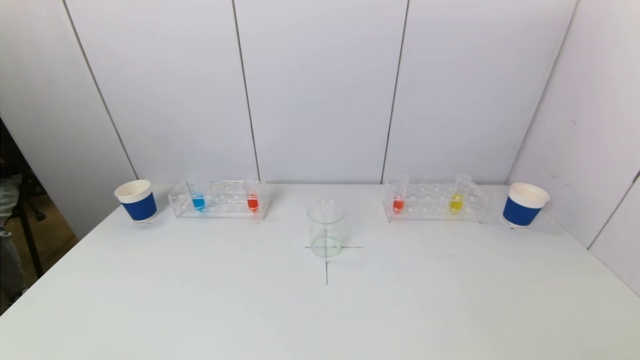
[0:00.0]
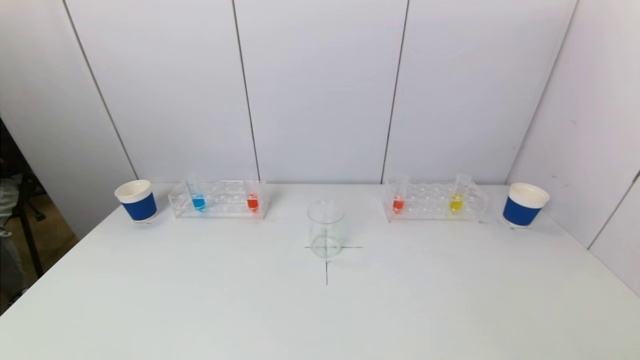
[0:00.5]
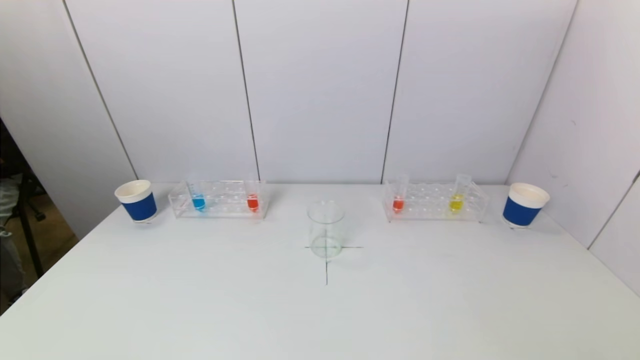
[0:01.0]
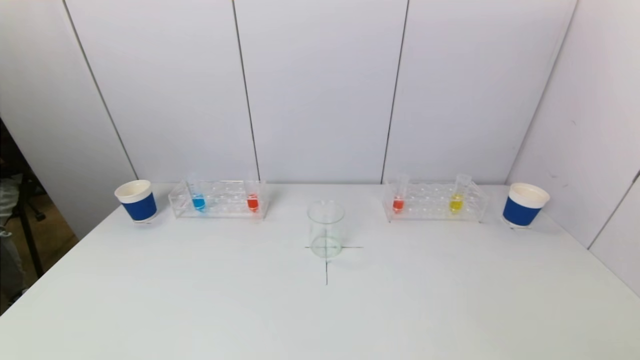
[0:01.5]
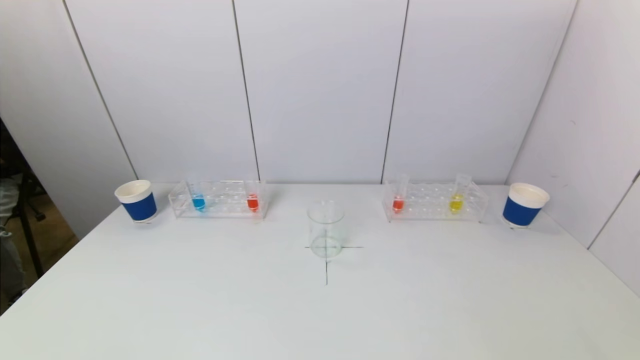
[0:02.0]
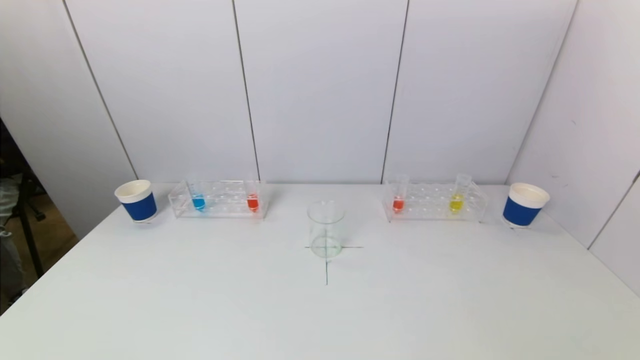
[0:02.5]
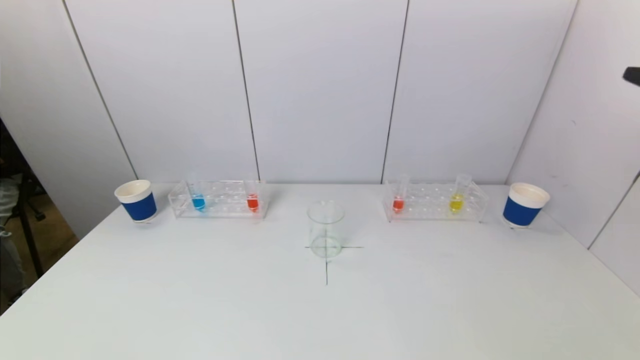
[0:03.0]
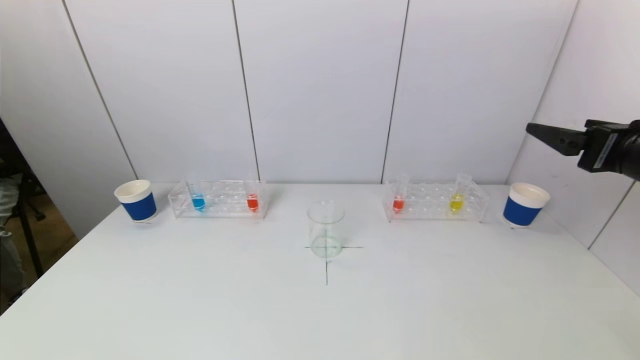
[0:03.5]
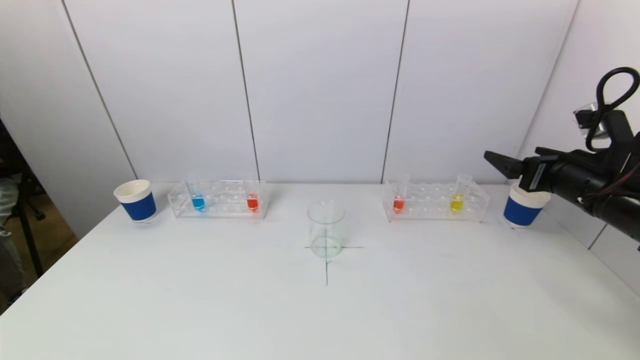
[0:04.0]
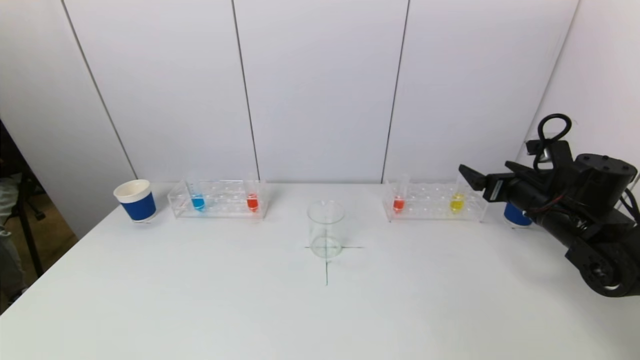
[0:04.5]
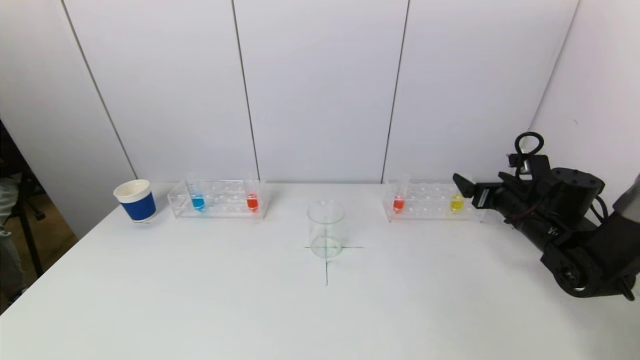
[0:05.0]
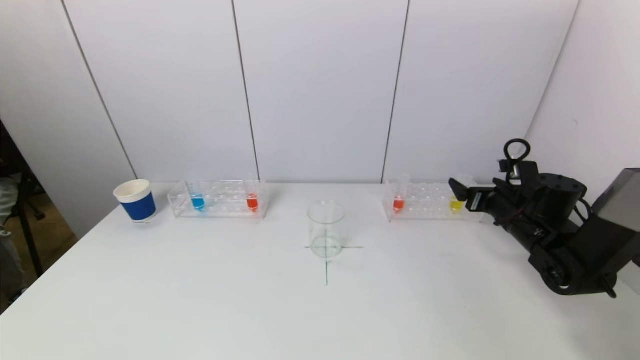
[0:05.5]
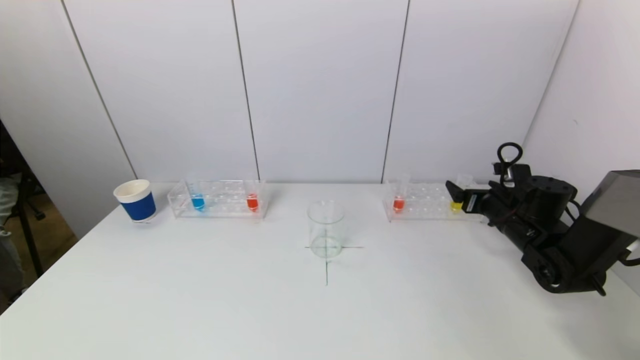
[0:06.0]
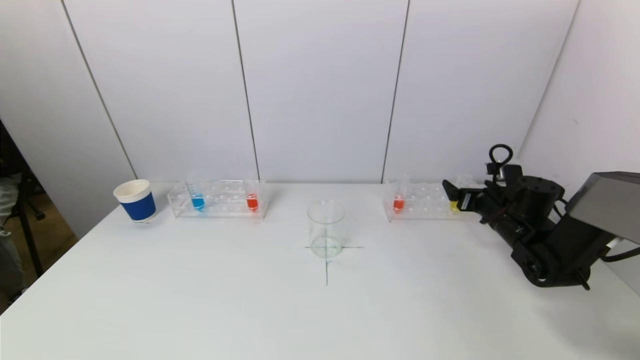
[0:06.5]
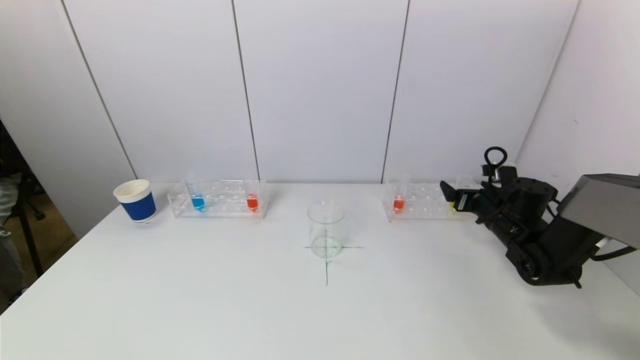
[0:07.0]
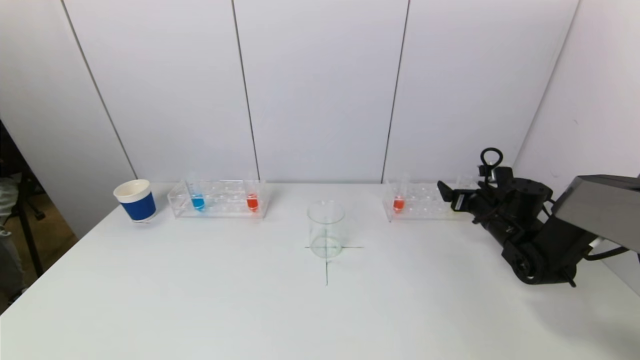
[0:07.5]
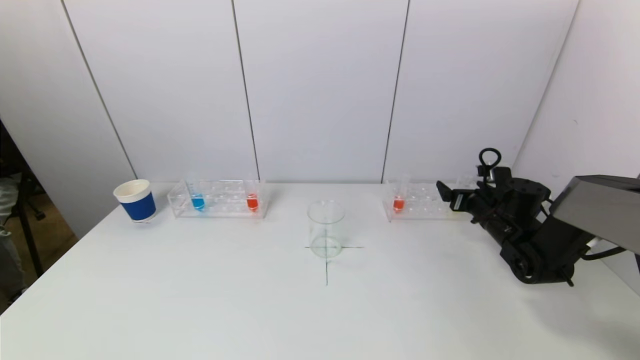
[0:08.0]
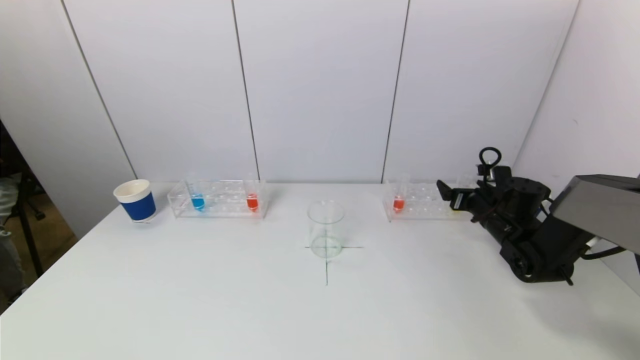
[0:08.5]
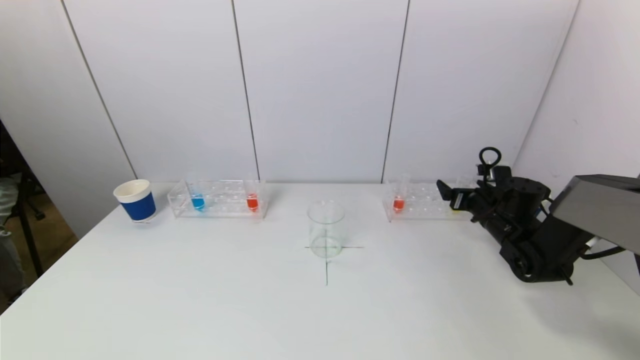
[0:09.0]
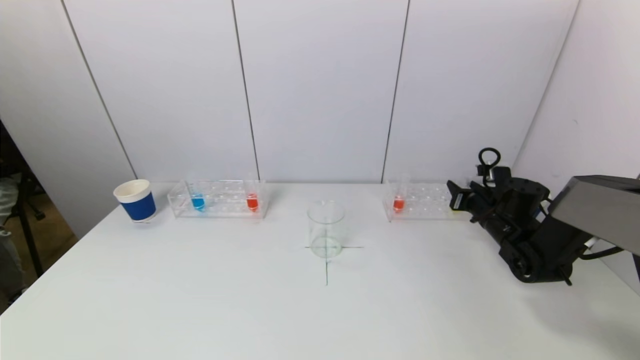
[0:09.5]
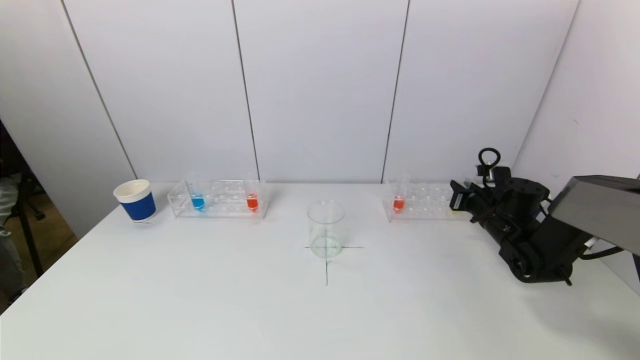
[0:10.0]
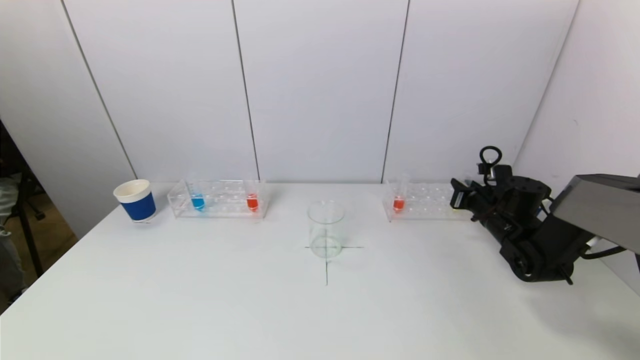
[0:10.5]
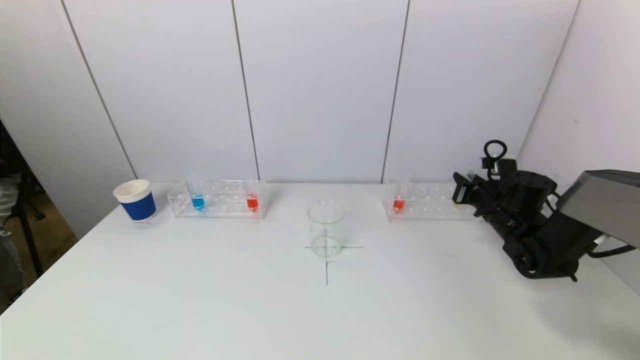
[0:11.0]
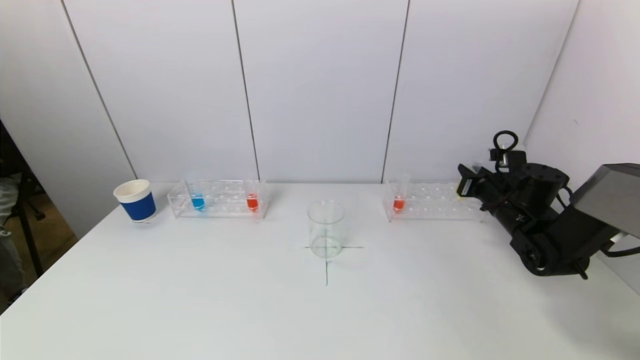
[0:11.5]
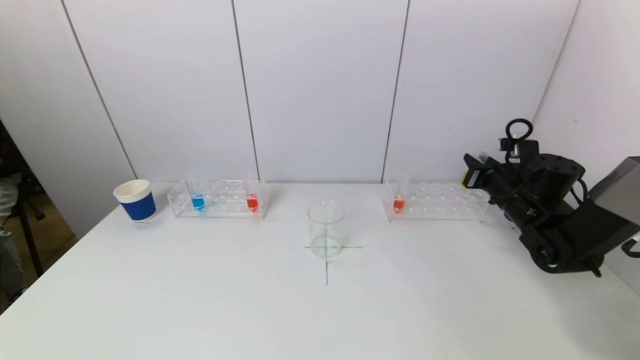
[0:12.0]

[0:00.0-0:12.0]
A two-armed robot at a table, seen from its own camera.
Task of the whole recording: pick up a test tube with pigment on left test tube rack and a test tube with pigment on right test tube rack by grippers and pour them into the beaker.
Step, 0:00.0 to 0:10.0: Grasp the yellow reagent with the right gripper.
0:02.0 to 0:04.0: The right gripper shifts approximately 35 cm forward.
0:04.0 to 0:06.0: The right gripper is displaced downward and forward by roughly 15 cm.
0:06.0 to 0:08.0: The grippers move only a little.
0:08.0 to 0:10.0: The right gripper closes.
0:10.0 to 0:12.0: The right gripper travels upward by some 5 cm.

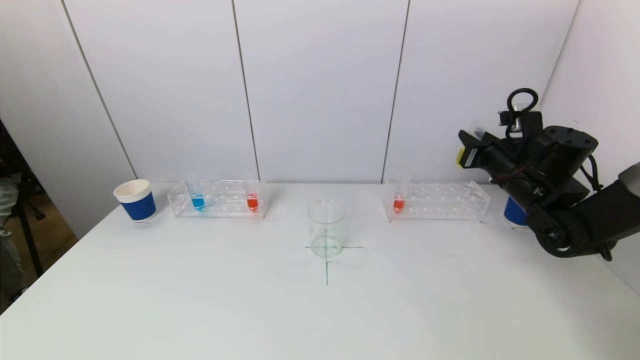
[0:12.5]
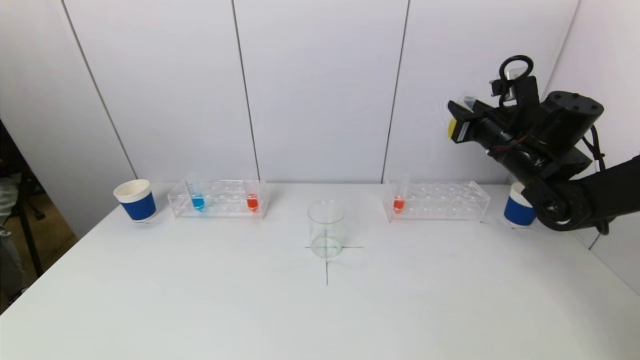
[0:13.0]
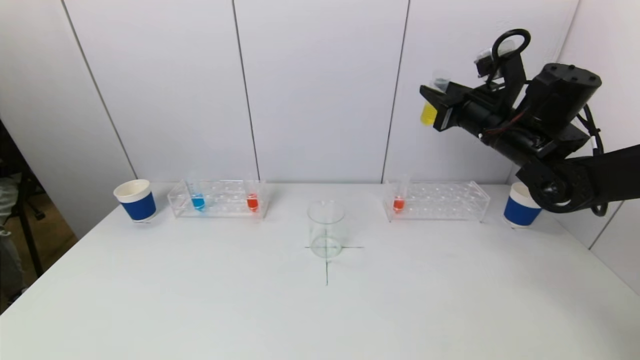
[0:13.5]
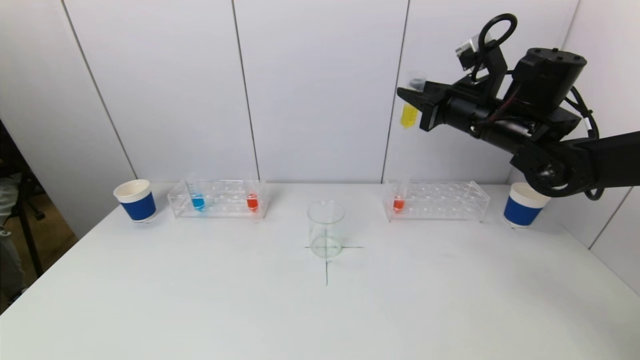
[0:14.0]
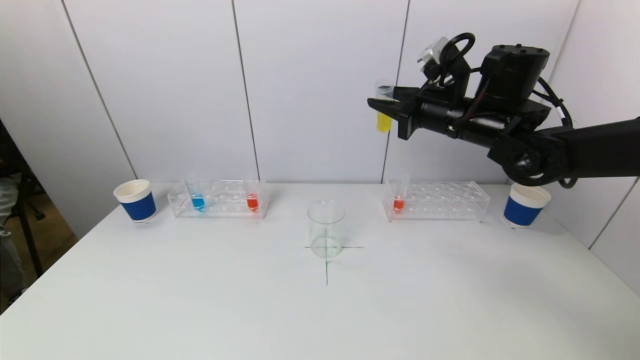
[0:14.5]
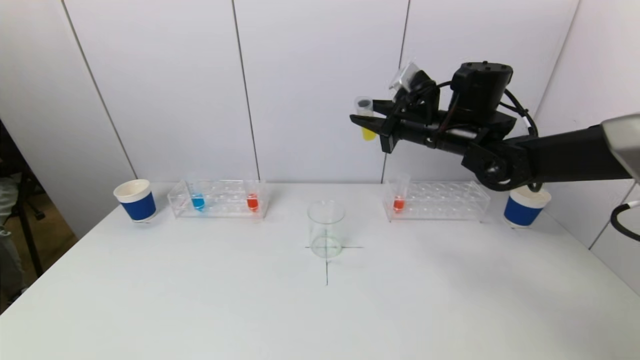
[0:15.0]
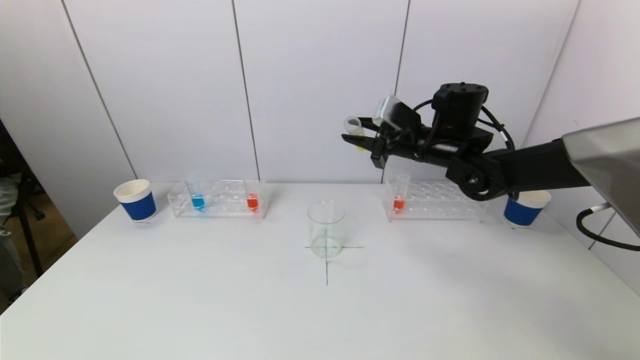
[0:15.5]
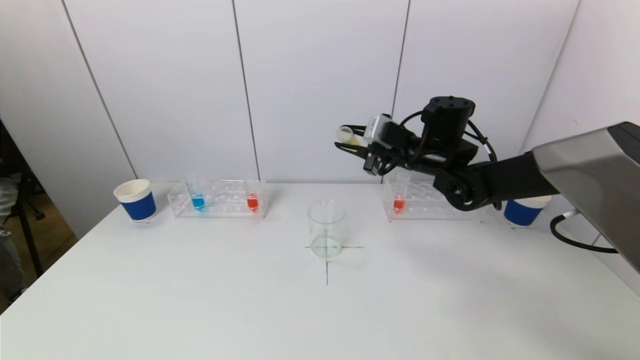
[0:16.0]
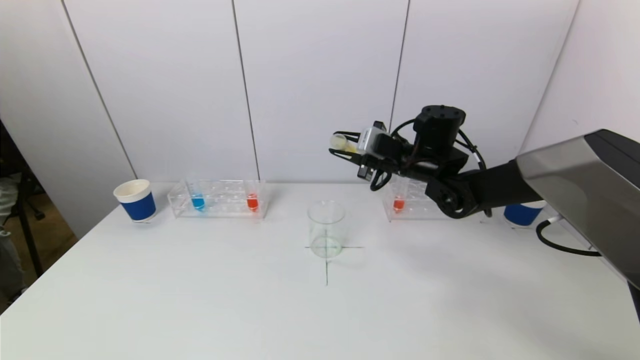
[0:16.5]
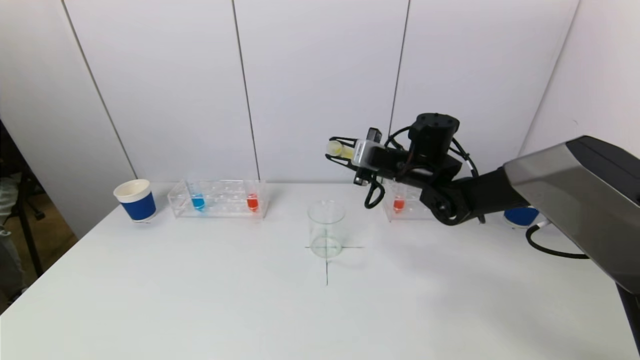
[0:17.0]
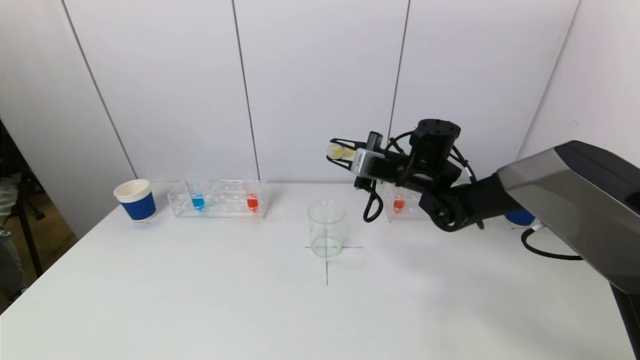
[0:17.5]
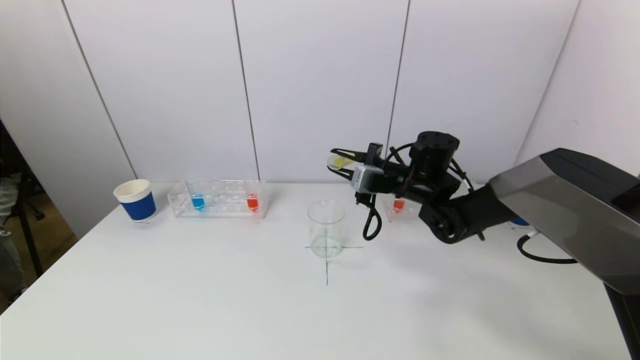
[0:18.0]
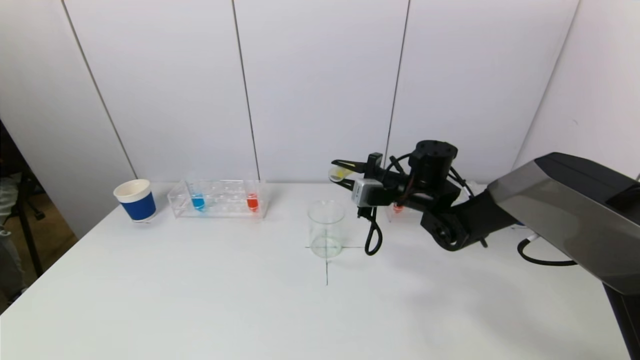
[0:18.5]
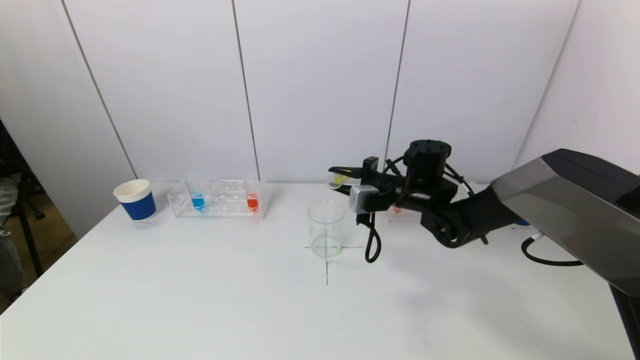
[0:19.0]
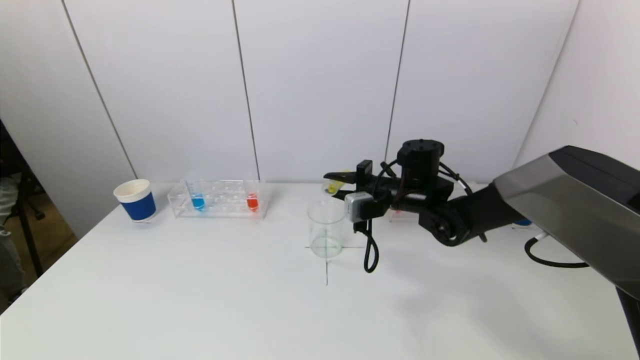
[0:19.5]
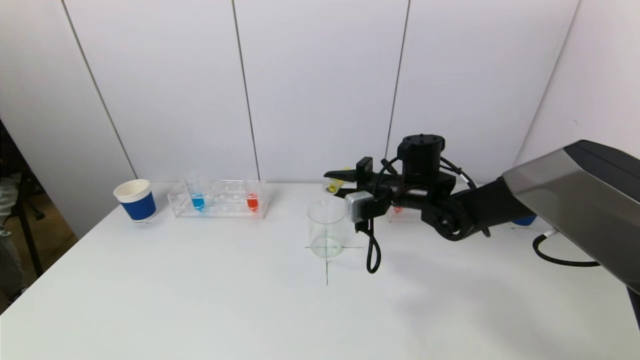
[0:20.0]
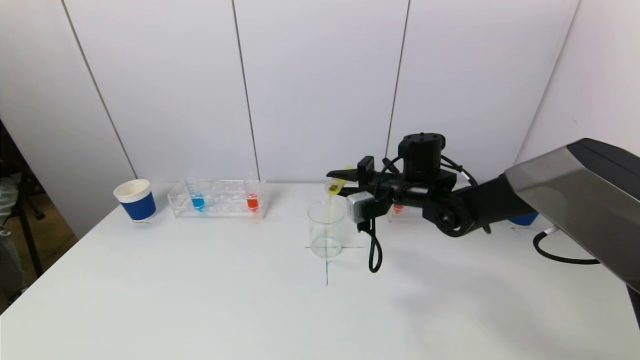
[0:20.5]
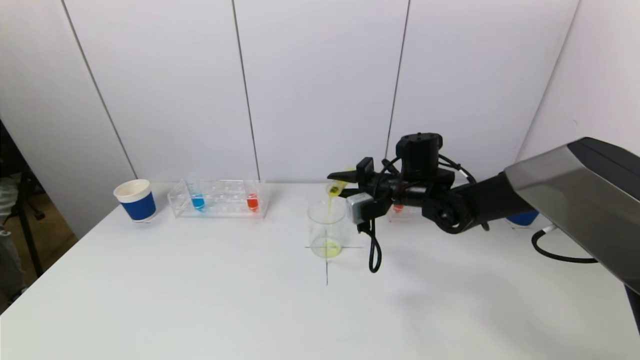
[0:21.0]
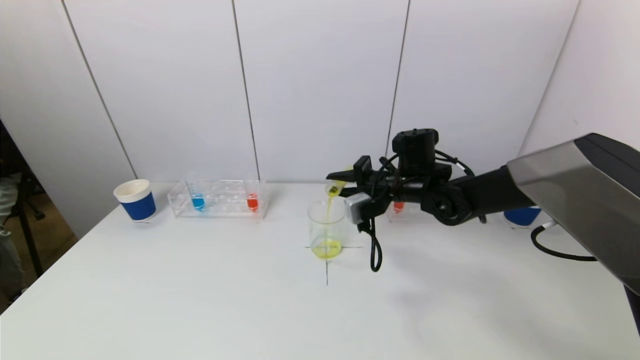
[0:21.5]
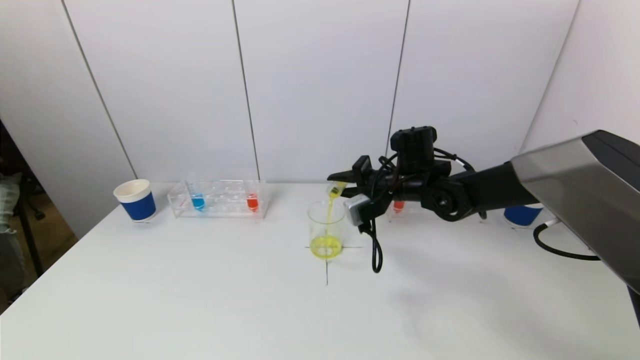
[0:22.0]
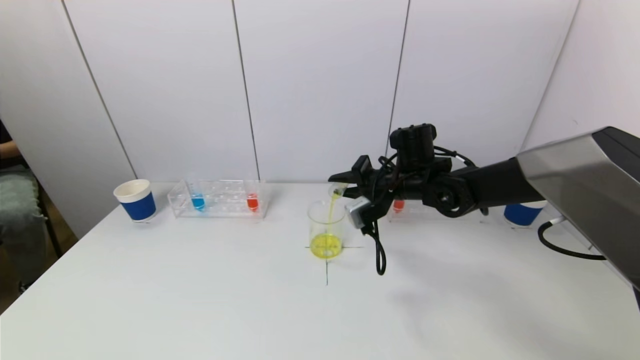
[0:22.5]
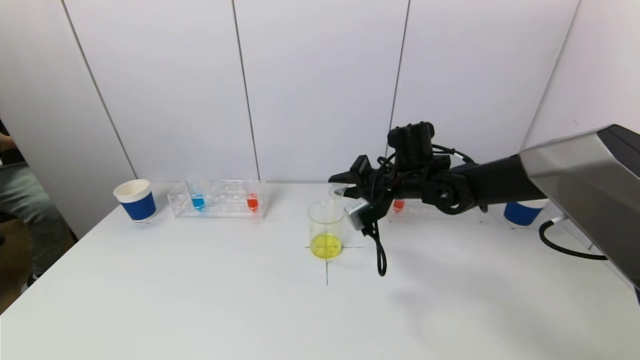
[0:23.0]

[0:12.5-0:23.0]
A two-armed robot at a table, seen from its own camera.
Task of the whole recording: pick up a test tube with pigment on left test tube rack and a test tube with pigment on right test tube rack by grippers and pour them into the beaker.
0:12.5 to 0:14.5: The right gripper moves to the left and upward, roughly 15 cm.
0:14.5 to 0:16.5: The right gripper moves downward and to the left, roughly 10 cm.
0:16.5 to 0:19.0: The right gripper moves downward, roughly 5 cm.
0:19.0 to 0:21.0: There are only small adjustments of the grippers.
0:21.0 to 0:23.0: The grippers make only small movements.
